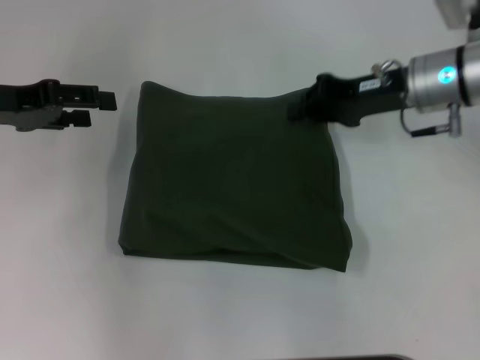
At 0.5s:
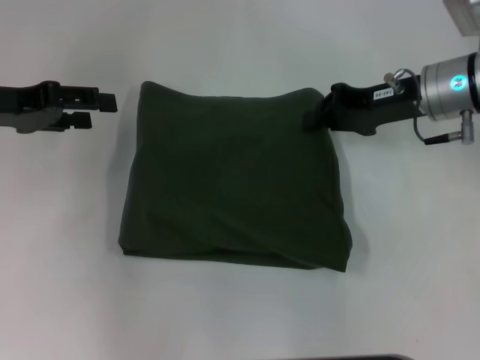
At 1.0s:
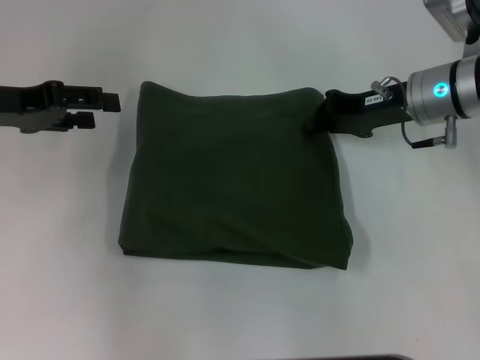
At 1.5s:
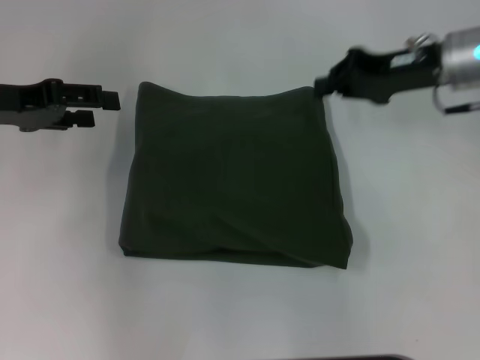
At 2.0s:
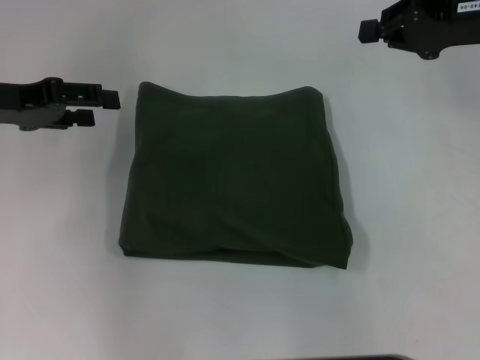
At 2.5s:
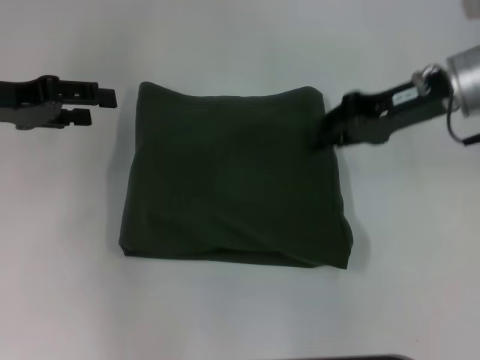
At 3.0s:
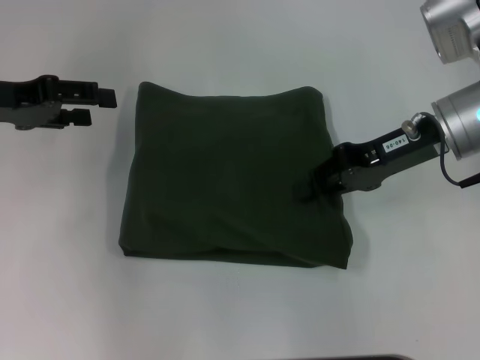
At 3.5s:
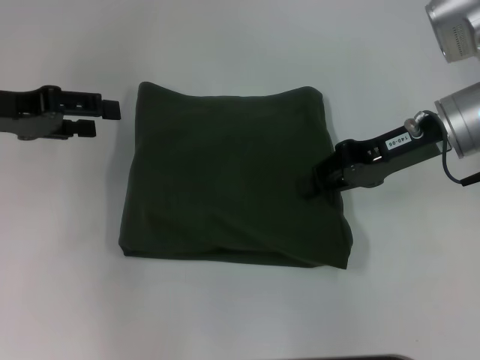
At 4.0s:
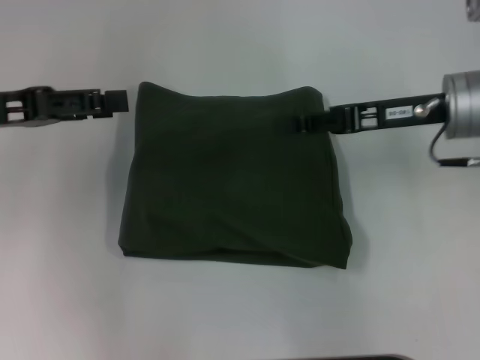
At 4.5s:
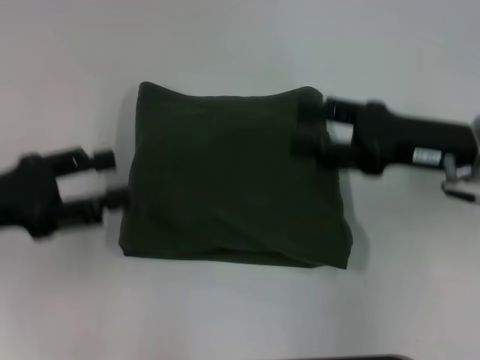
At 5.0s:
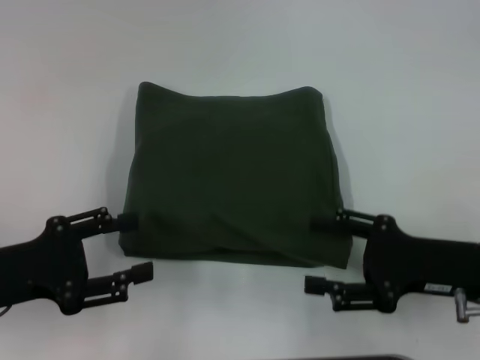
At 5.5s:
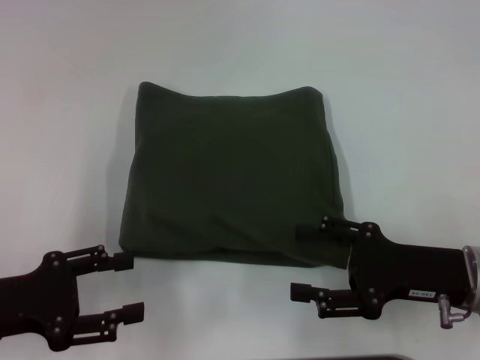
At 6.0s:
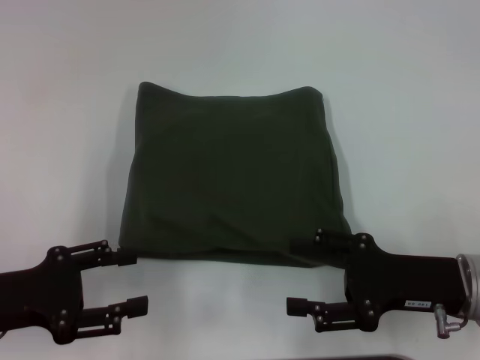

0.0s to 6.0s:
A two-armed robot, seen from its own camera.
0.0s to 2.0s: The right gripper heads to the right and upward, covering about 10 cm.
2.0s to 4.0s: The right gripper travels to the left, backward and downward by approximately 10 cm.
4.0s to 6.0s: The two grippers go approximately 15 cm backward and downward. The right gripper opens.
